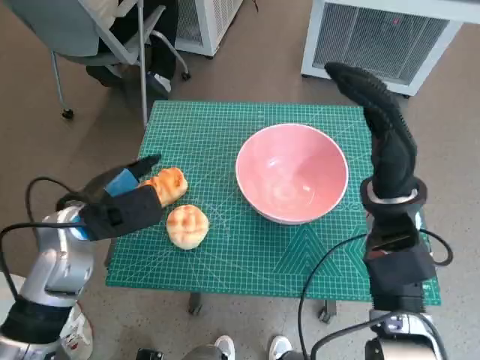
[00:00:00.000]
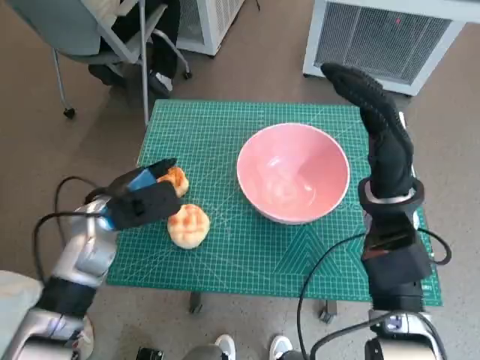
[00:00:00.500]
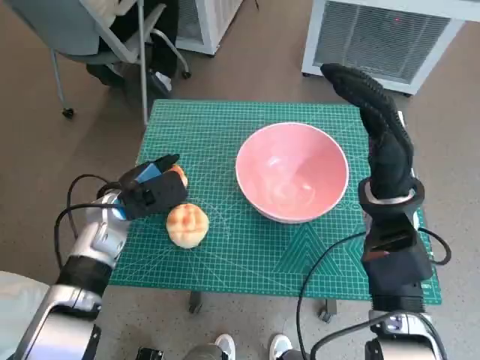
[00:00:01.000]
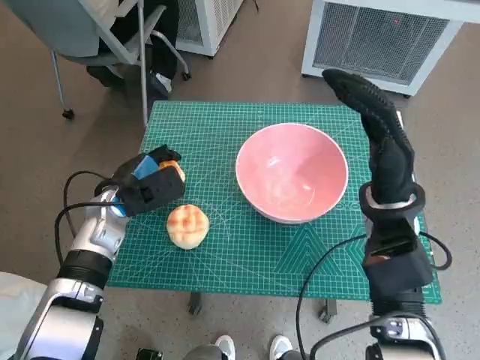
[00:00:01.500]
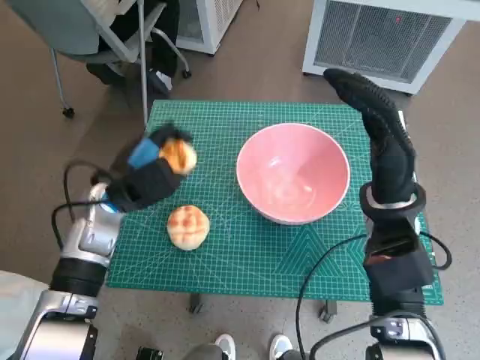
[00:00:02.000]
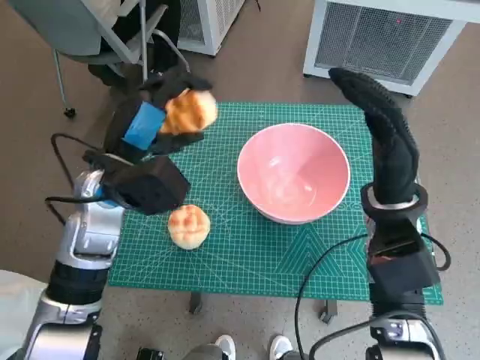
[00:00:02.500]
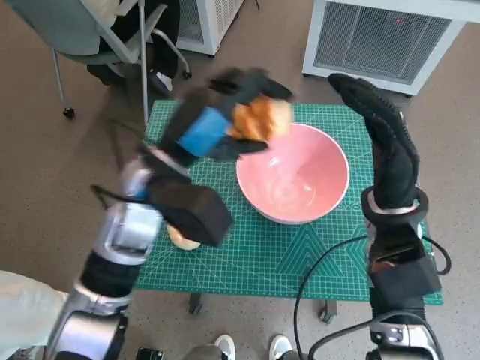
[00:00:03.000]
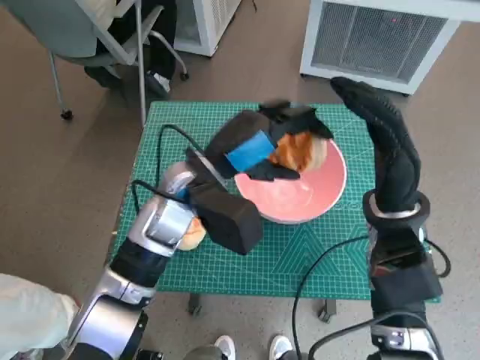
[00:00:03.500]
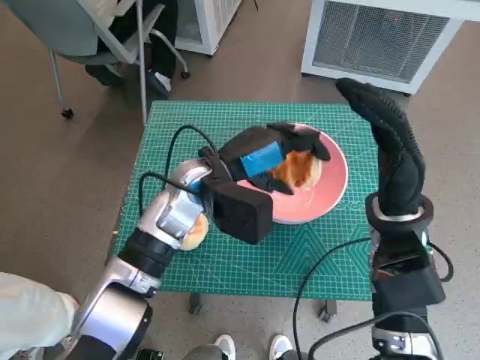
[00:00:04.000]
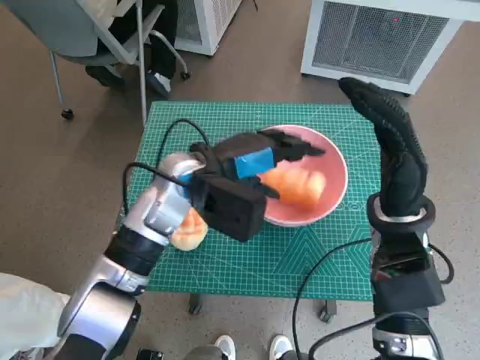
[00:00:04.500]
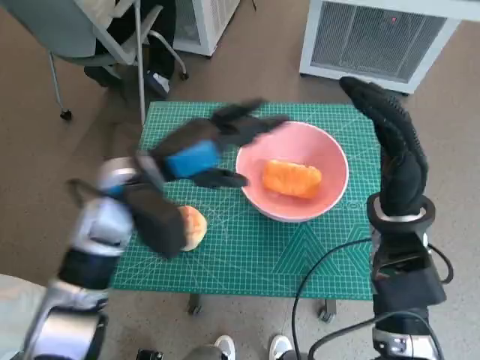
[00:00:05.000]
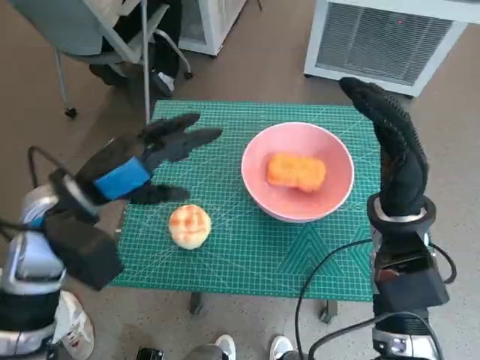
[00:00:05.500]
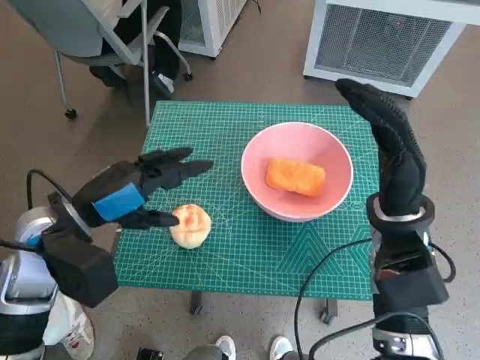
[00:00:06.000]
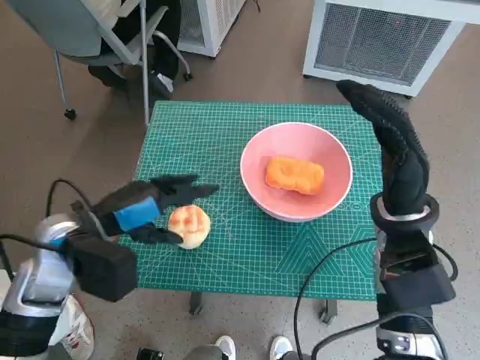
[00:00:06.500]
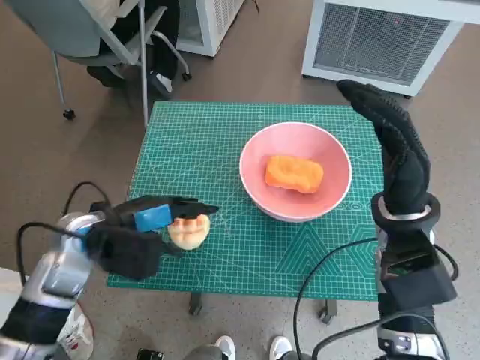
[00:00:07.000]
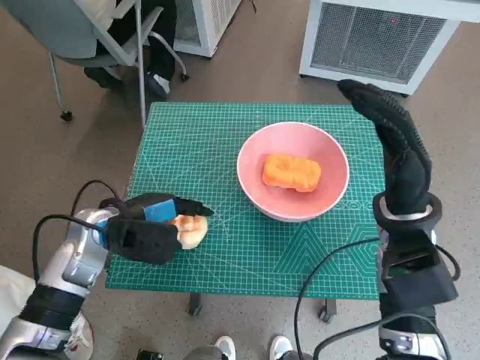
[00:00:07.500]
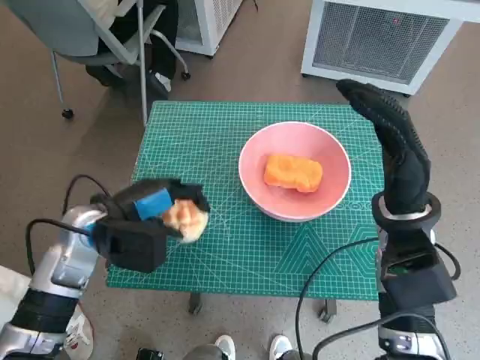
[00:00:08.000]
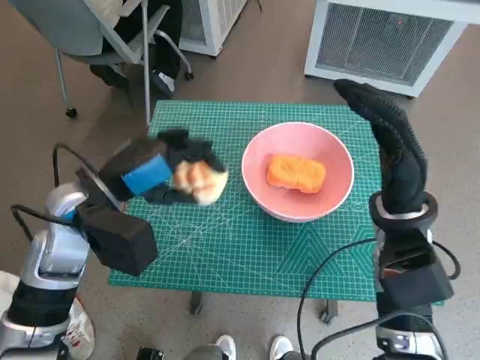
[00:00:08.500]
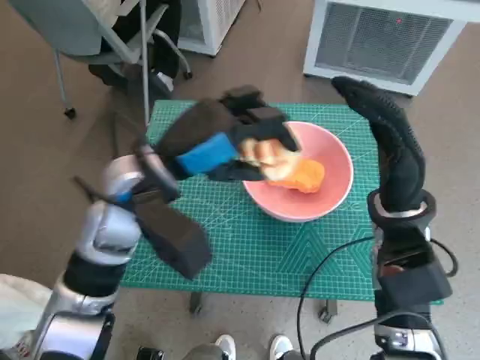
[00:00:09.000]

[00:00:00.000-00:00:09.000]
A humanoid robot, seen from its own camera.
Task of the whole recording: Push the bowl to the center of the table and put the bread into the bowl.
Step, 00:00:02.000 to 00:00:04.500: Place the long bread in pink bowl with left hand.
Step, 00:00:05.000 to 00:00:07.500: Grasp the round bread with left hand.
00:00:00.000 to 00:00:02.000: The left hand heads forward, covering about 5 cm.
00:00:02.000 to 00:00:04.500: The left hand moves to the right and upward, approximately 15 cm.
00:00:04.500 to 00:00:07.000: The left hand heads to the left and backward, covering approximately 15 cm.
00:00:07.000 to 00:00:09.000: The left hand moves to the right and upward, some 10 cm.

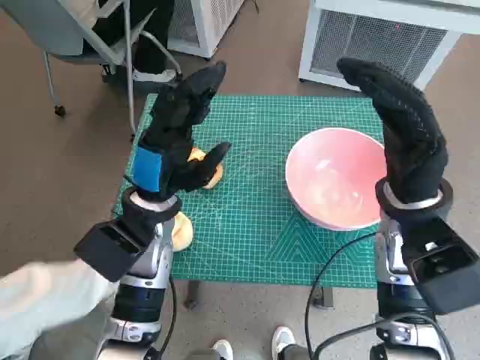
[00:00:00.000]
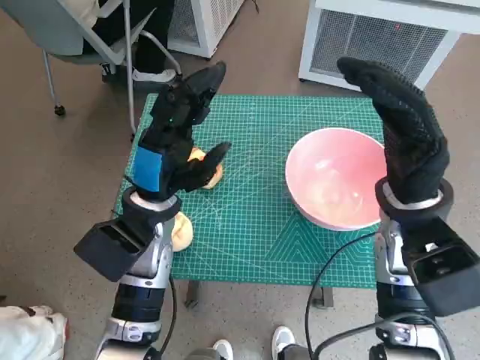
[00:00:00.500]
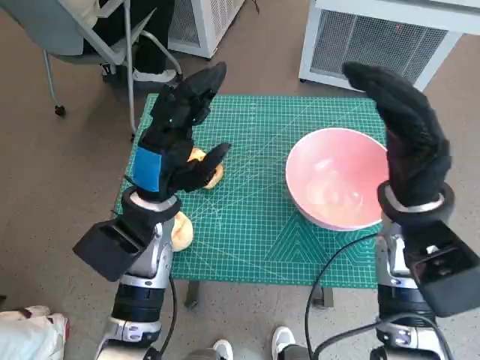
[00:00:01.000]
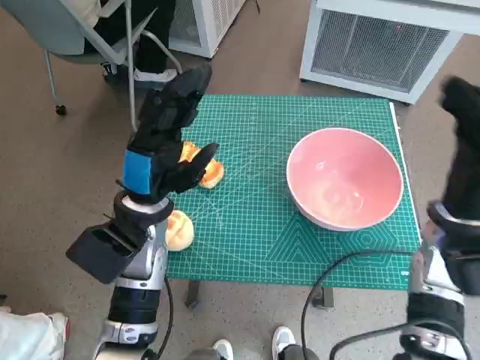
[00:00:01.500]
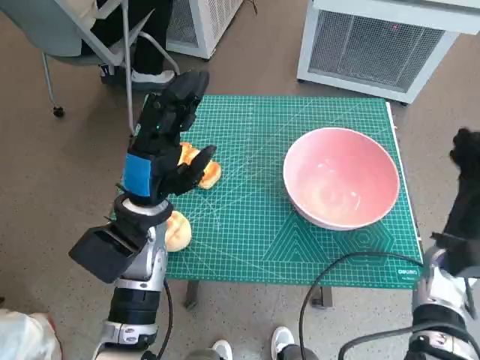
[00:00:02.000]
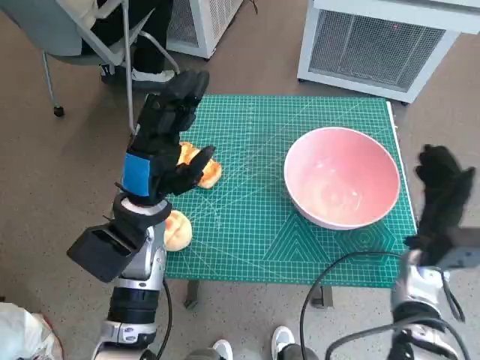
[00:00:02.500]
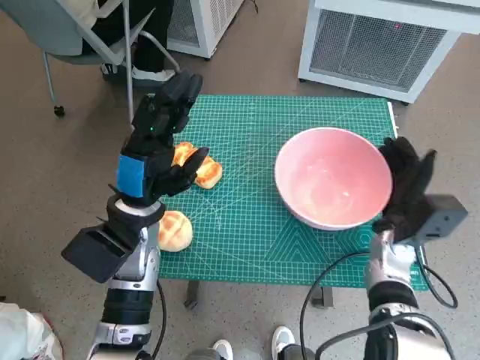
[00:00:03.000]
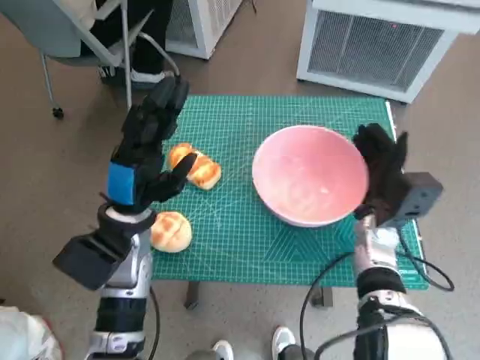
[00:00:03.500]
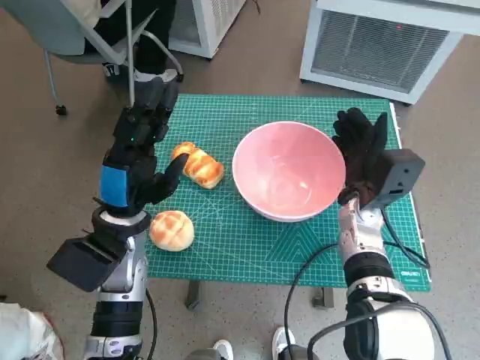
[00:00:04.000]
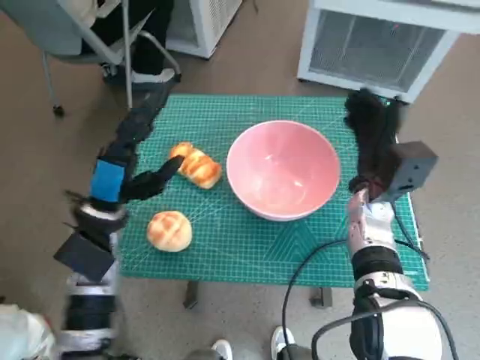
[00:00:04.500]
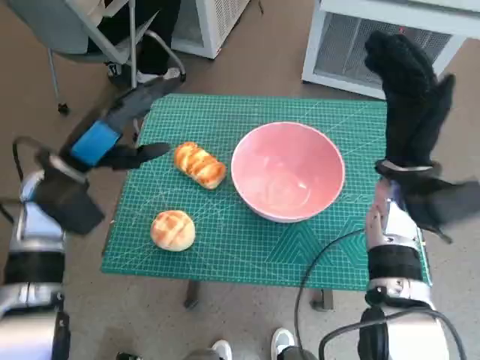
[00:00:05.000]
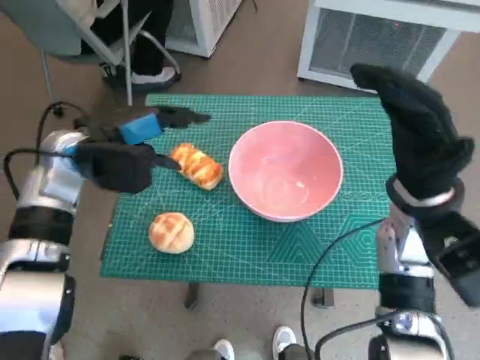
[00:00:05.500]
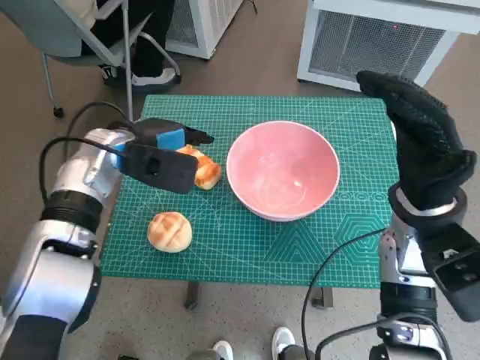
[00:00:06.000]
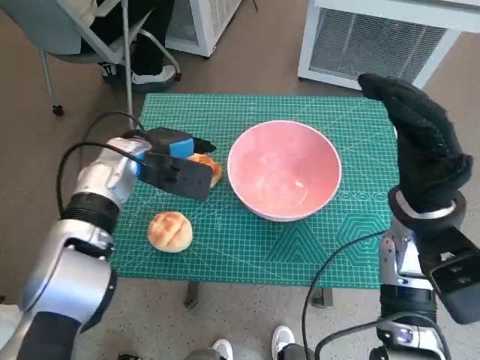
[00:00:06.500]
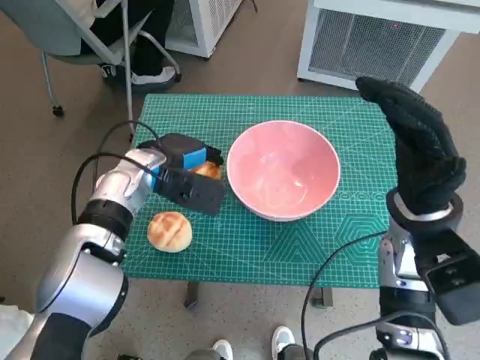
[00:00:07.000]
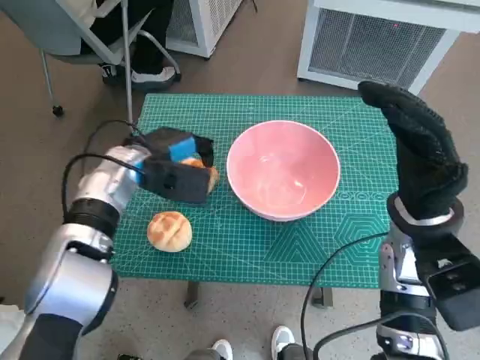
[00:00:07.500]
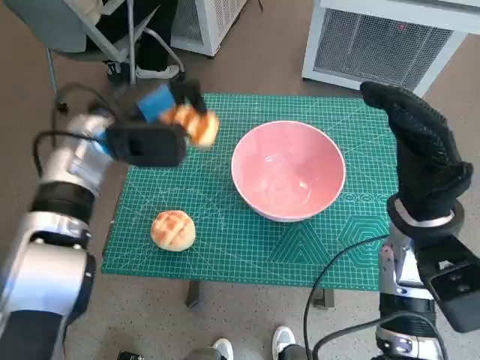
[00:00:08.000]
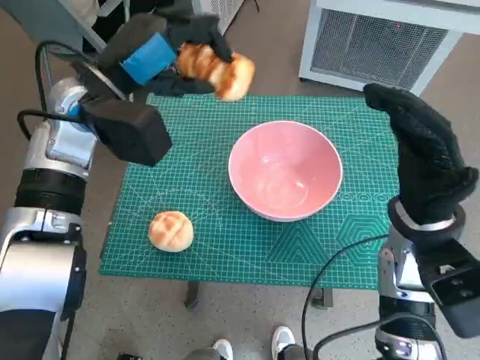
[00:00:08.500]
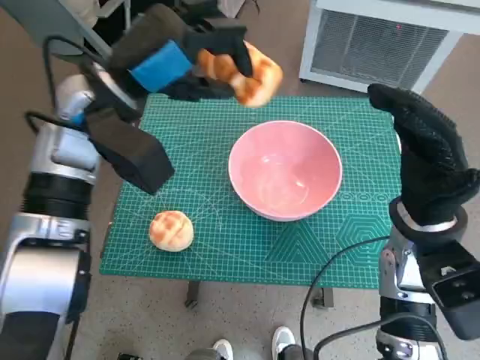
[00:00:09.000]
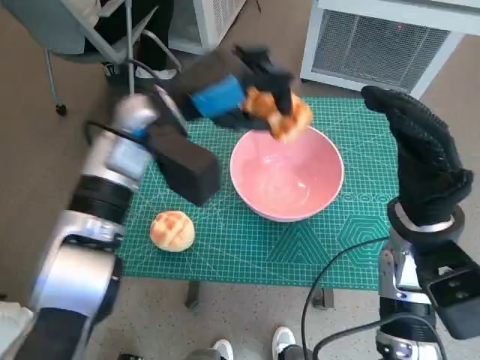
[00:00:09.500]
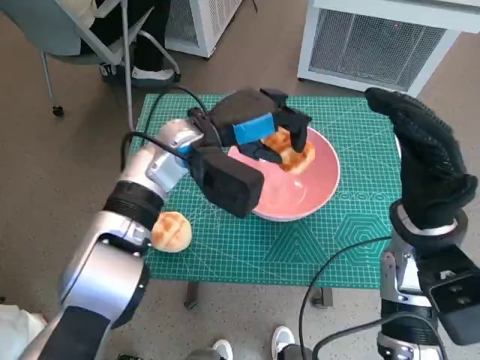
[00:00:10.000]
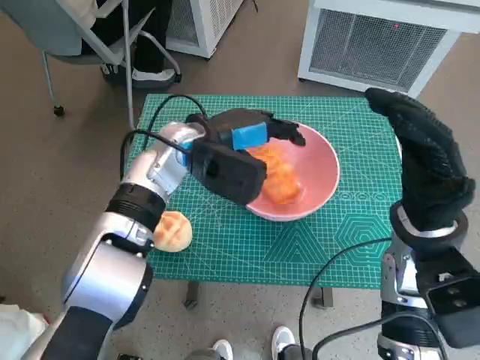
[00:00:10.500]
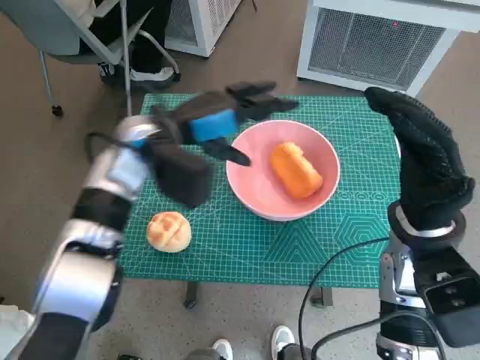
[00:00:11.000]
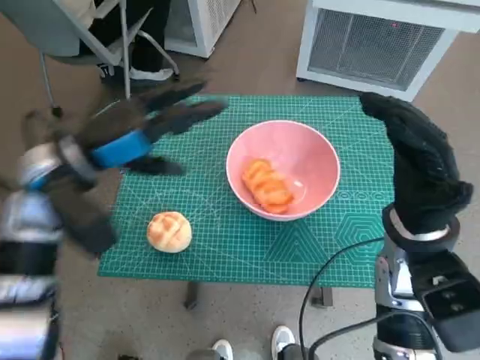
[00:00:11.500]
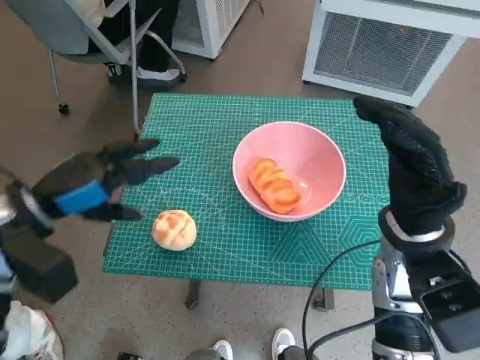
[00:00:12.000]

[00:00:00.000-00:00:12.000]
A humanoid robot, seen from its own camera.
Task of the whole recording: Push the bowl to the center of the table and put the bread into the bowl.
Step, 00:00:00.000 to 00:00:04.000: Move the pink bowl to the center of table with right hand.
Step, 00:00:05.000 to 00:00:07.000: Grasp the long bread with left hand.
Step, 00:00:07.500 to 00:00:10.500: Place the long bread in pink bowl with left hand.
00:00:02.000 to 00:00:04.000: The right hand heads to the left and forward, covering some 15 cm.
00:00:04.000 to 00:00:06.000: The left hand heads forward and upward, covering some 10 cm; the right hand heads upward and backward, covering approximately 10 cm.
00:00:08.000 to 00:00:10.000: The left hand moves to the right, about 10 cm.
00:00:10.000 to 00:00:12.000: The left hand travels to the left and backward by approximately 20 cm.

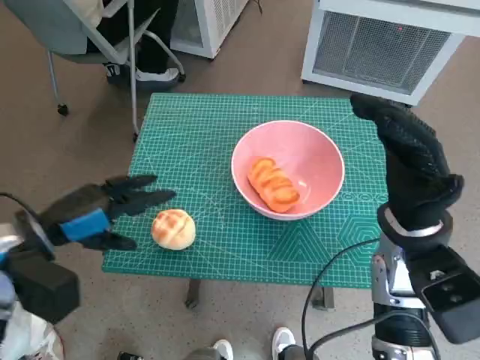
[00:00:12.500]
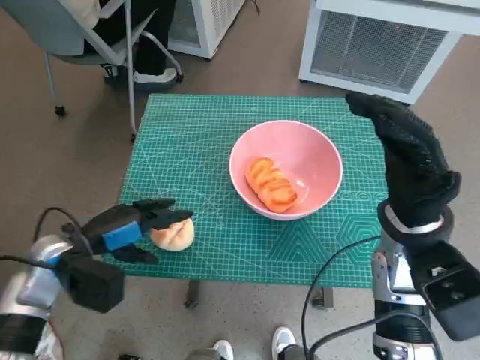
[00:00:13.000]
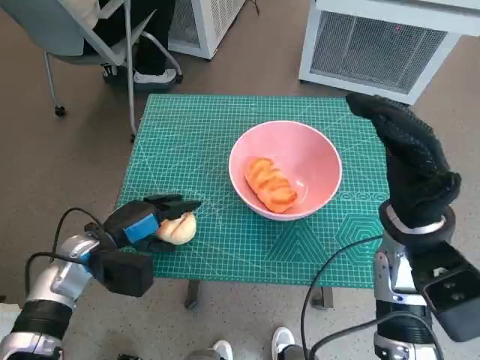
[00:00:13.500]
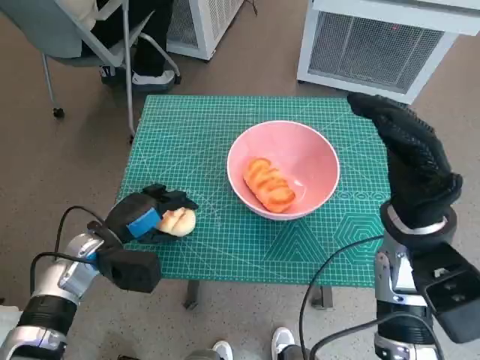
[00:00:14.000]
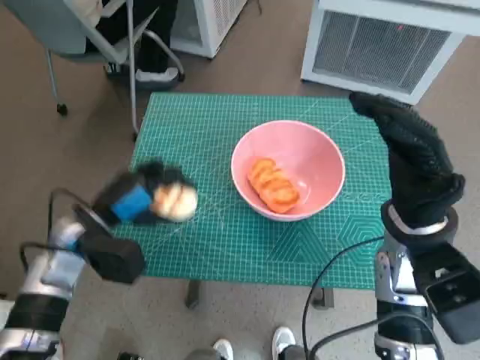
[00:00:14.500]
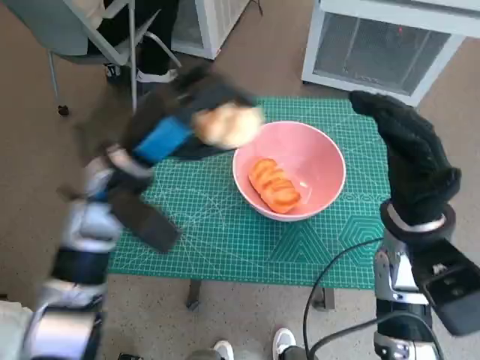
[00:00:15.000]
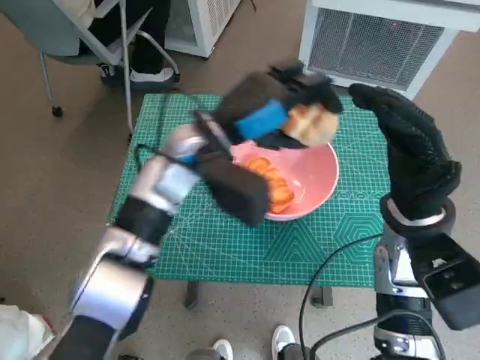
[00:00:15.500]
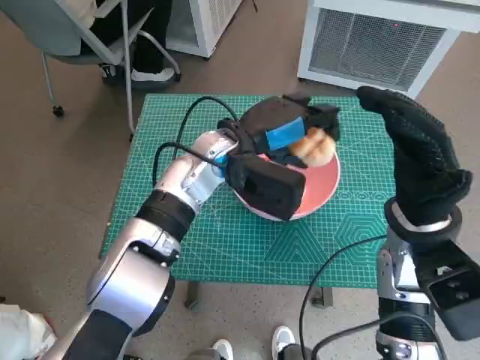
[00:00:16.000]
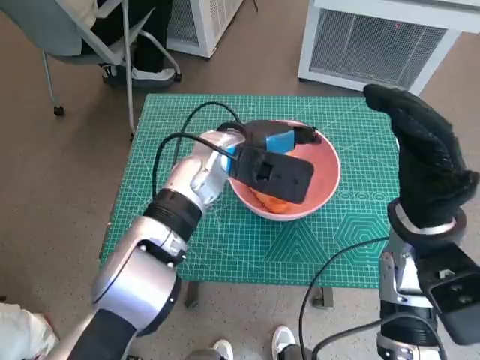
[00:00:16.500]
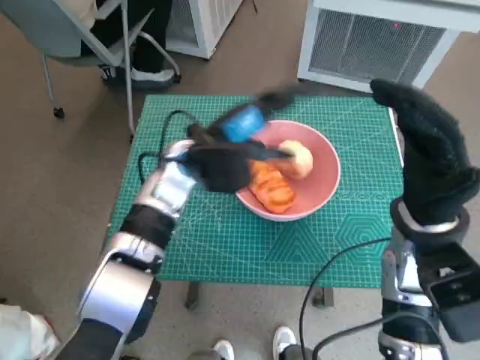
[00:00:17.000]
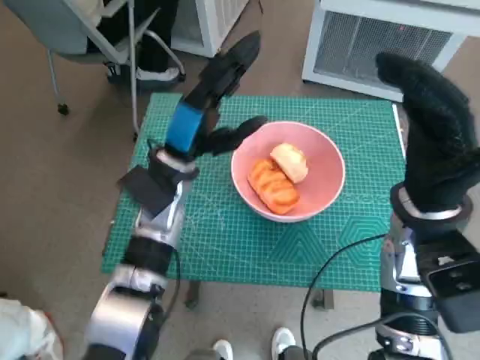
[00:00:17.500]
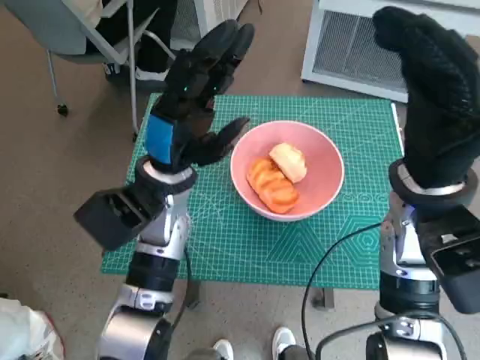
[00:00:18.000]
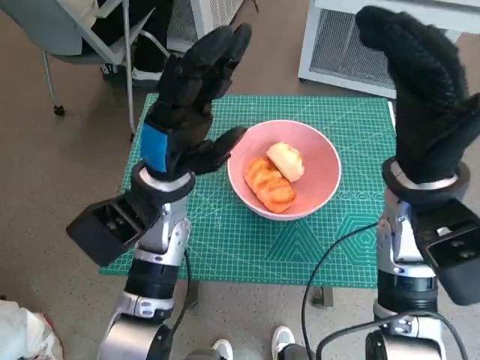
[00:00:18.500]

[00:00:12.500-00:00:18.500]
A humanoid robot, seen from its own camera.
Task of the whole recording: Push the bowl to the center of the table and put the bread into the bowl.
Step, 00:00:14.000 to 00:00:16.500: Place the round bread in pink bowl with left hand.
00:00:12.500 to 00:00:14.500: The left hand changes place by approximately 10 cm.
00:00:14.500 to 00:00:16.500: The left hand shifts some 20 cm to the right and forward.
00:00:16.500 to 00:00:18.500: The right hand shifts approximately 5 cm upward. The left hand shifts approximately 10 cm to the left and backward.
